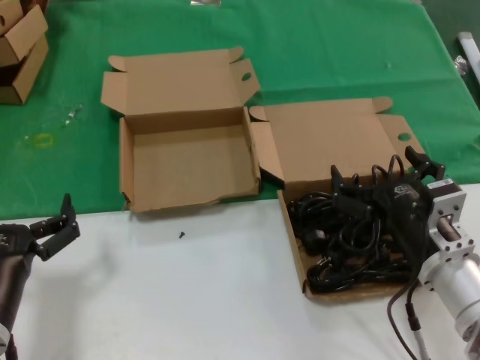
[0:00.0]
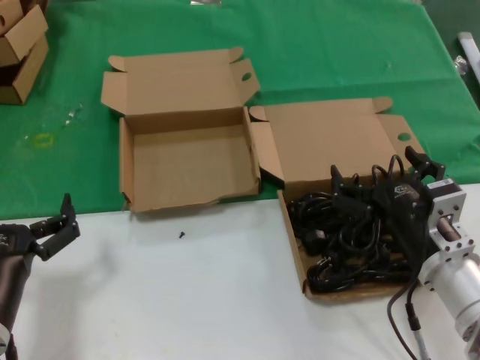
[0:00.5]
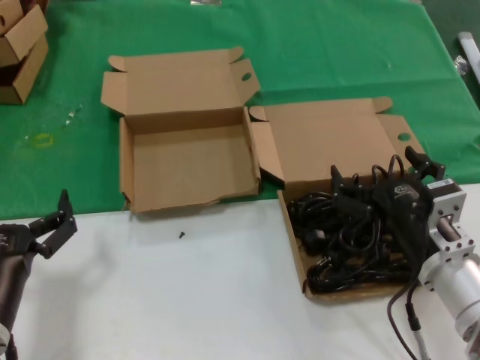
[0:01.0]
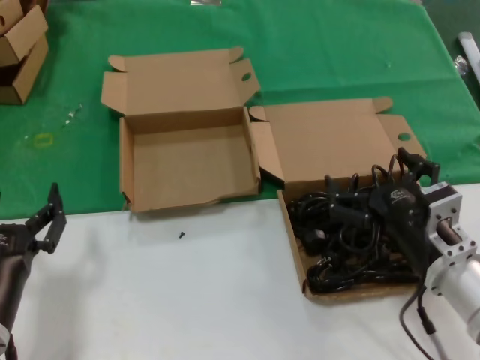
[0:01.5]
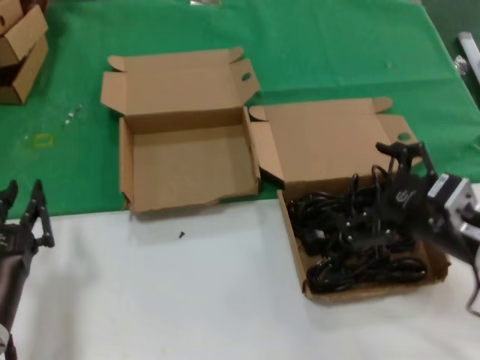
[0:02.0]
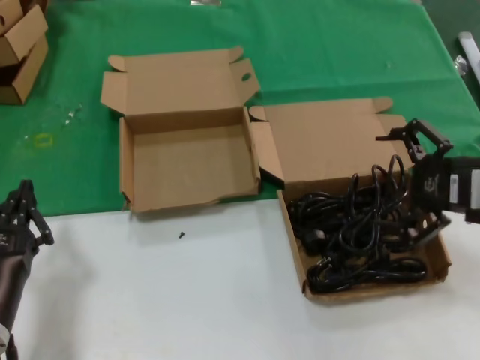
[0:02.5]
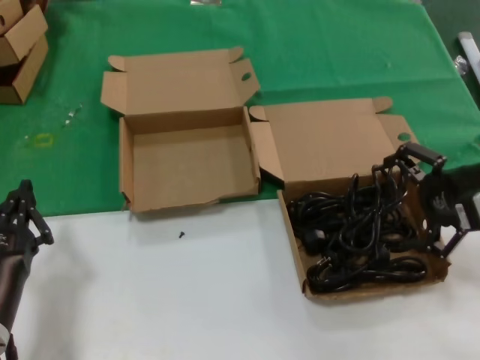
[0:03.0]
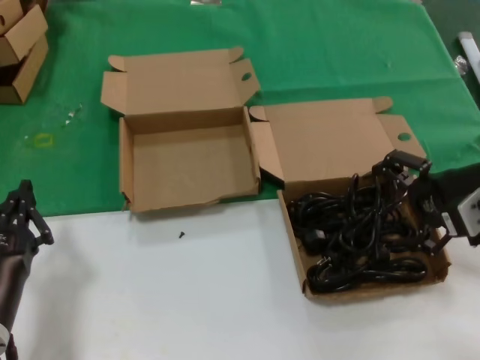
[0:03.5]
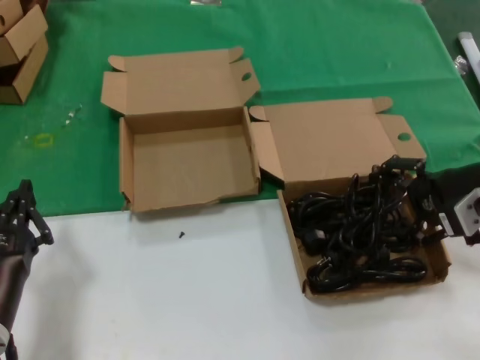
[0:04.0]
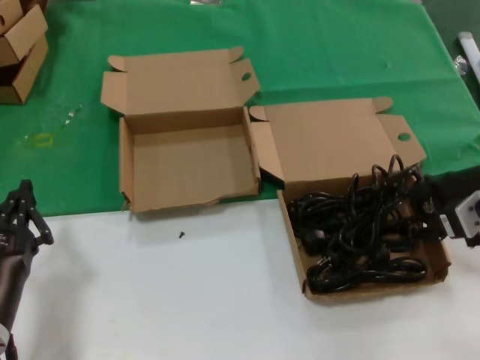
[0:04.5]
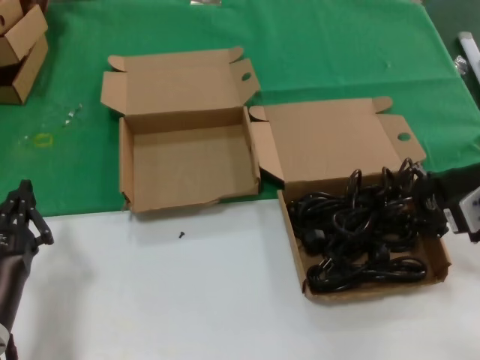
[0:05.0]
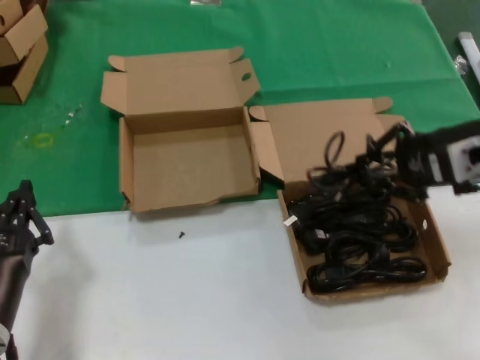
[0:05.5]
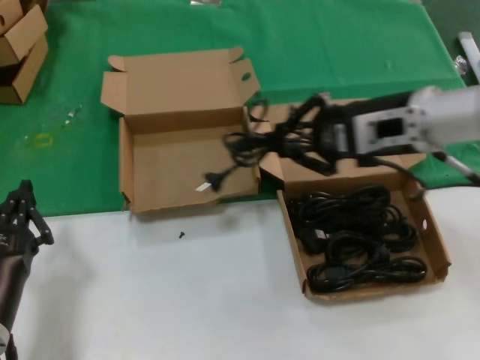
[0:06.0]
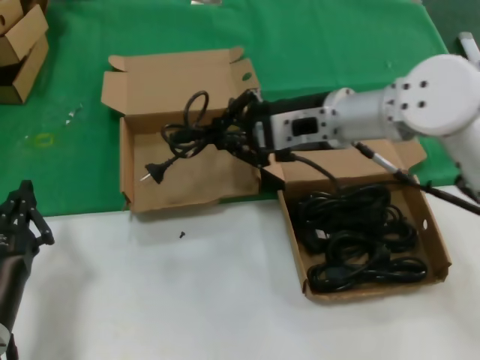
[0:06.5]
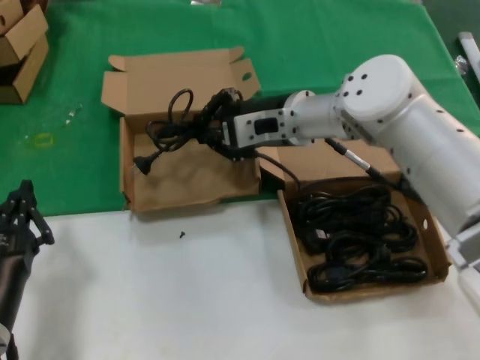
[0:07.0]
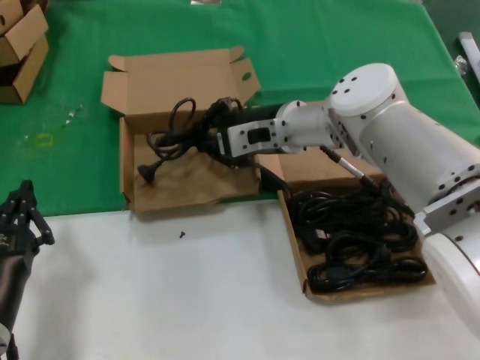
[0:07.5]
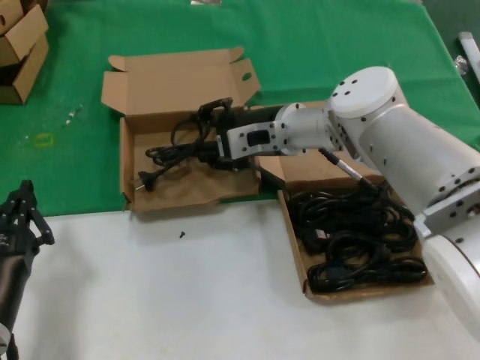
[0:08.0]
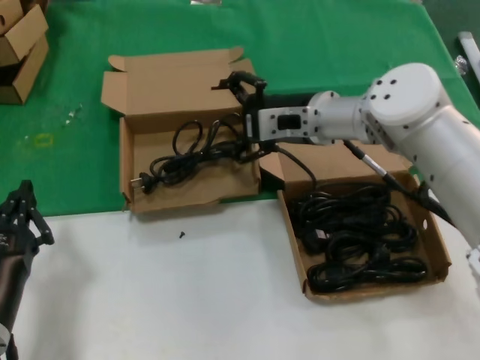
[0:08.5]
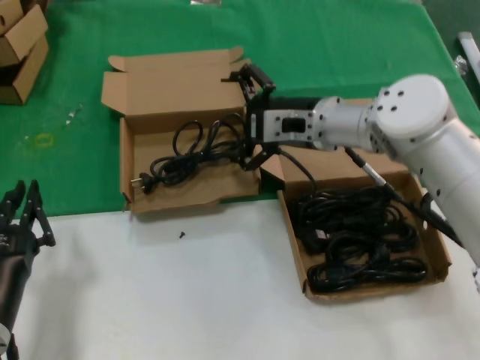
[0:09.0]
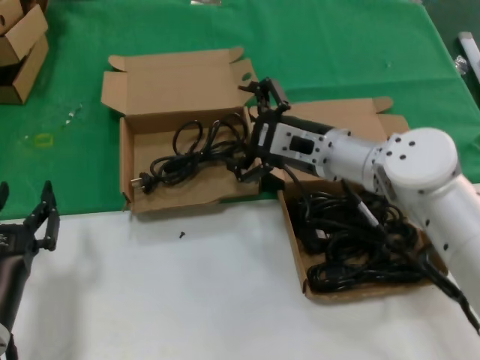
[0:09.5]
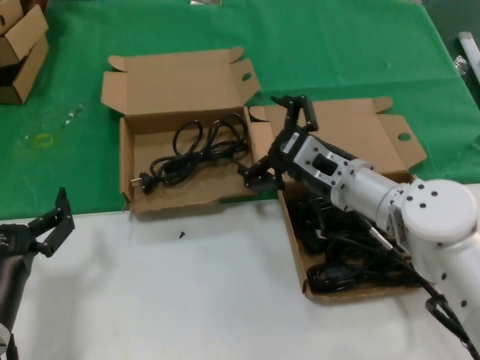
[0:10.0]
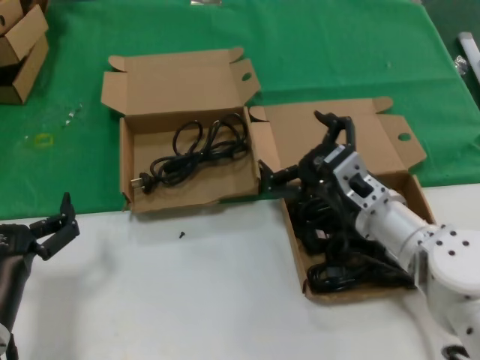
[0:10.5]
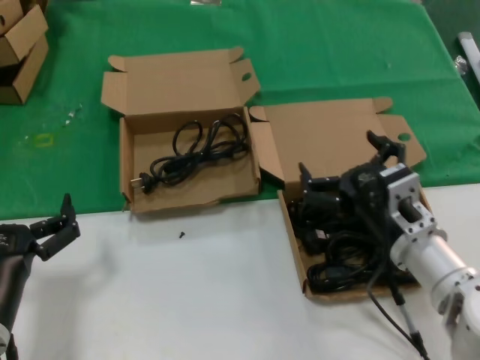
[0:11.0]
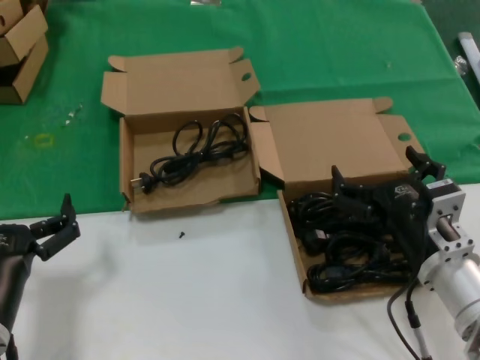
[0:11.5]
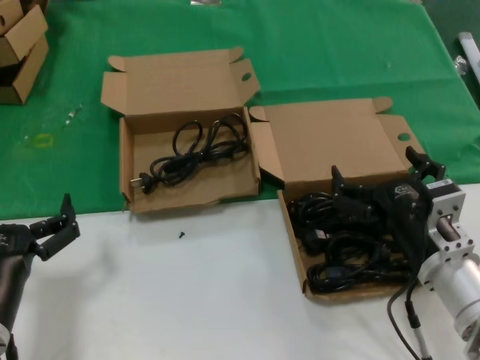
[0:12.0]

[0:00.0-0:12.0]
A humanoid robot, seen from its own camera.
Task of the whole recording: take the parts from the box containing them and put them into an empty box.
Step, 0:00.0 to 0:04.5: Grasp the data cable.
Step, 0:05.0 to 0:08.0: Place the data cable in the another box.
0:00.0 to 0:02.0: The right hand shifts roughly 10 cm upward and to the right.
0:02.0 to 0:04.0: The right hand heads forward, to the right and upward, covering some 15 cm.
0:04.0 to 0:06.0: The right hand moves to the left and upward, approximately 15 cm.
0:06.0 to 0:08.0: The right hand moves to the left, forward and downward, about 20 cm.
0:08.0 to 0:10.0: The right hand shifts some 15 cm backward, downward and to the right.
0:10.0 to 0:12.0: The right hand heads backward and to the right, covering approximately 15 cm.

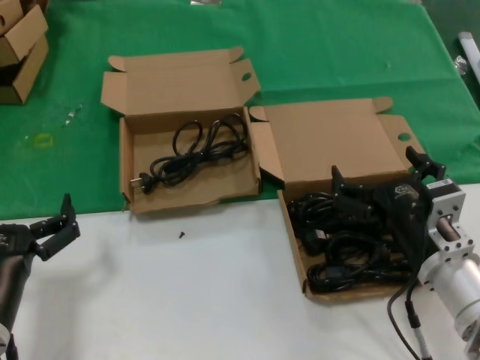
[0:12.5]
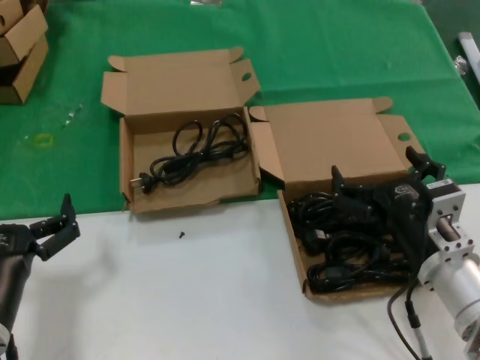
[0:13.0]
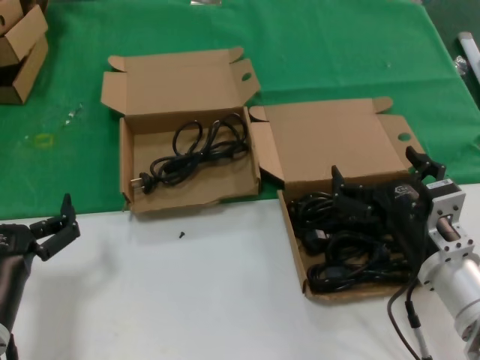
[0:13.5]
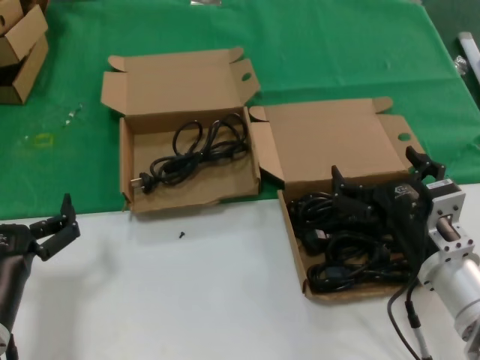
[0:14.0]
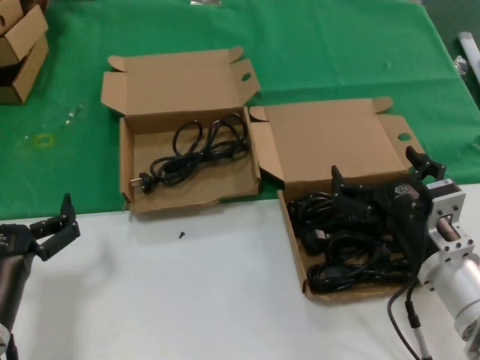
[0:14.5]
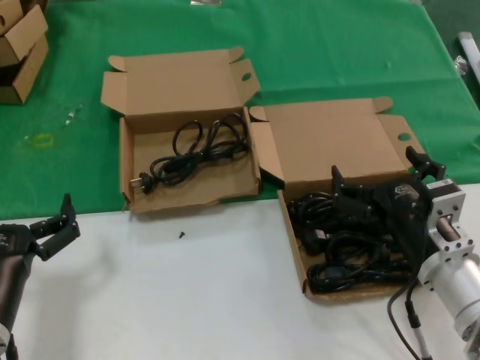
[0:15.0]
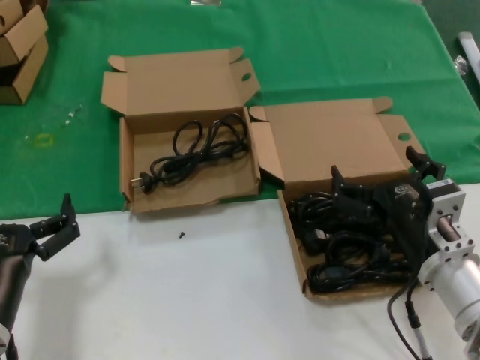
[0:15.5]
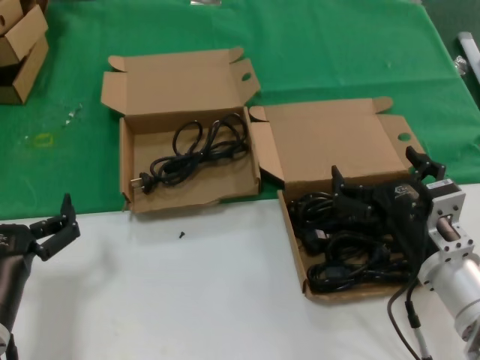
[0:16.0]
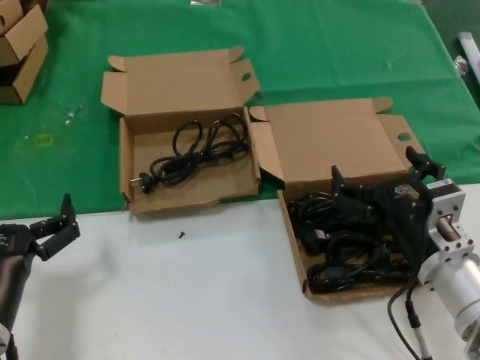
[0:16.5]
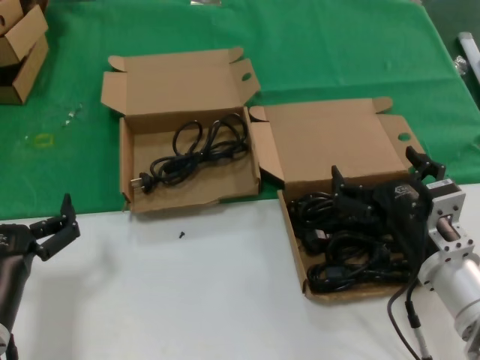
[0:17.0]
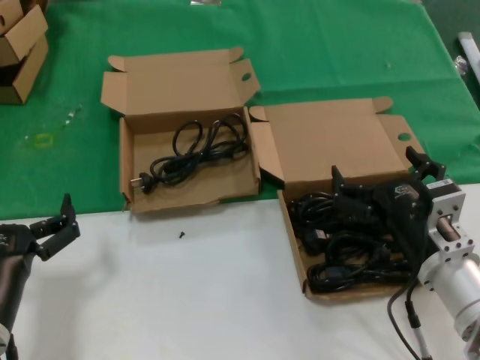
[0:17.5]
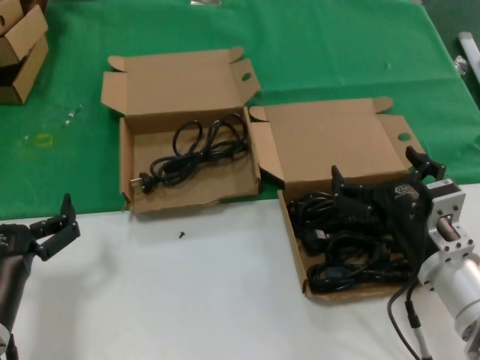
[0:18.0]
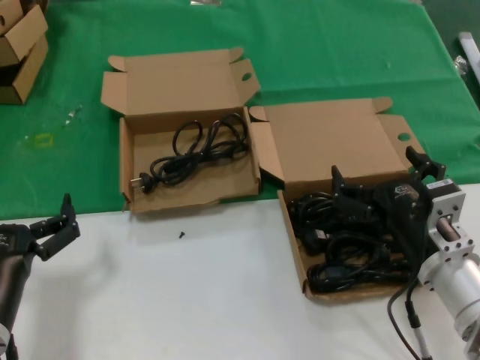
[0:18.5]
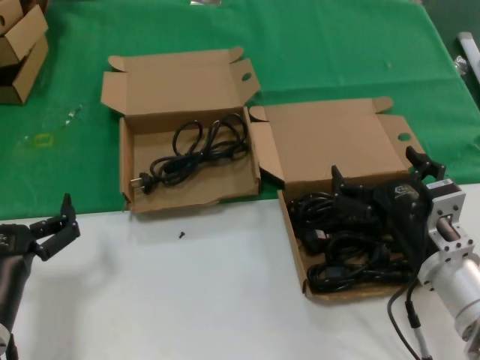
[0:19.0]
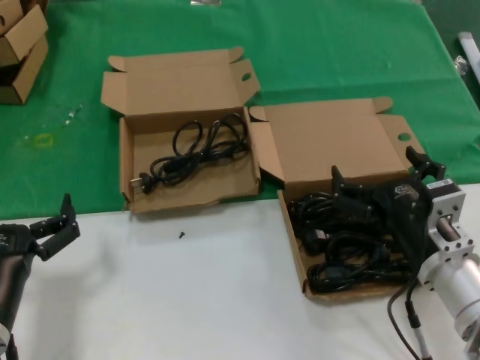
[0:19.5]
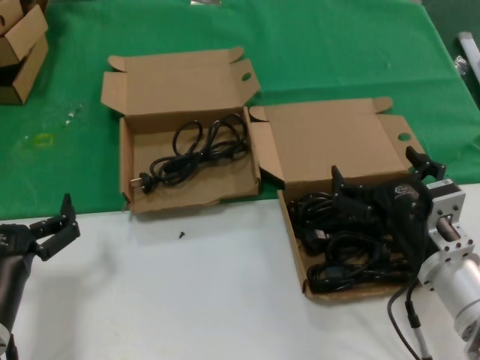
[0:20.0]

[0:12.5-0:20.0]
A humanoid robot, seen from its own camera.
Task of the whole recording: take the parts from the box containing them and put them into an empty box.
0:12.5 to 0:20.0: Both hands stay put.

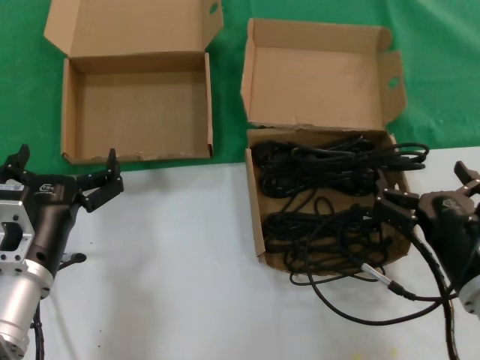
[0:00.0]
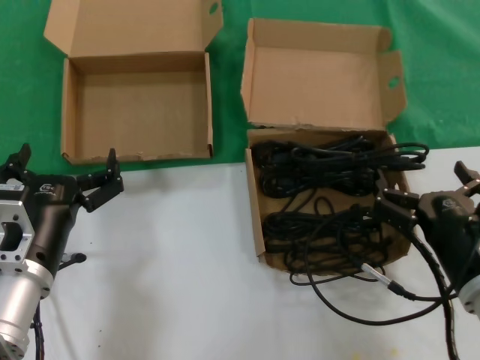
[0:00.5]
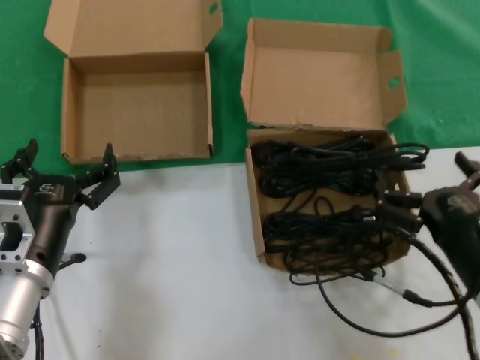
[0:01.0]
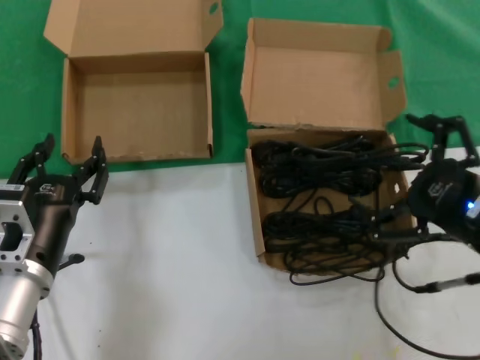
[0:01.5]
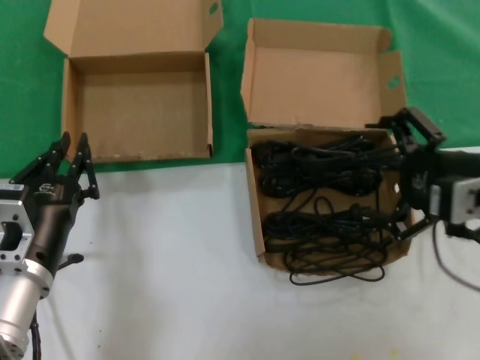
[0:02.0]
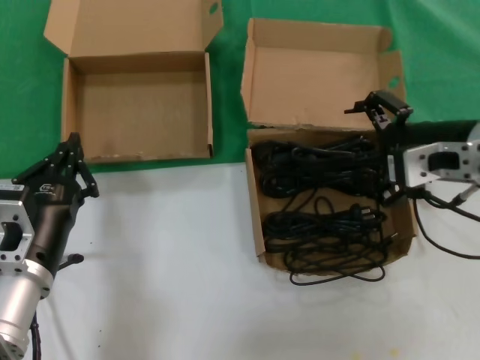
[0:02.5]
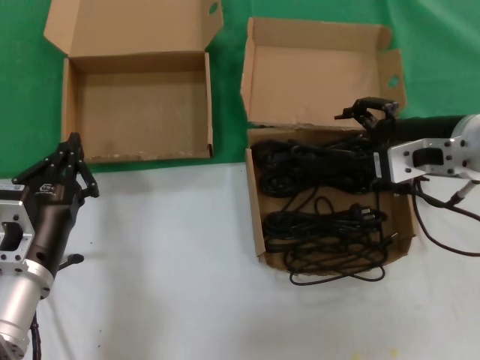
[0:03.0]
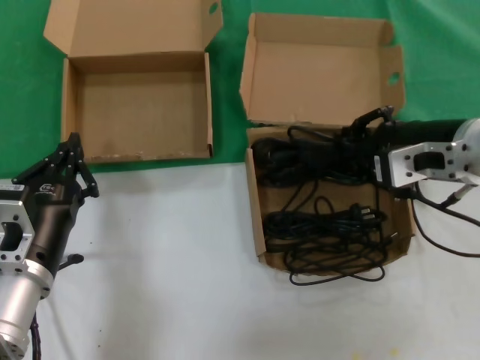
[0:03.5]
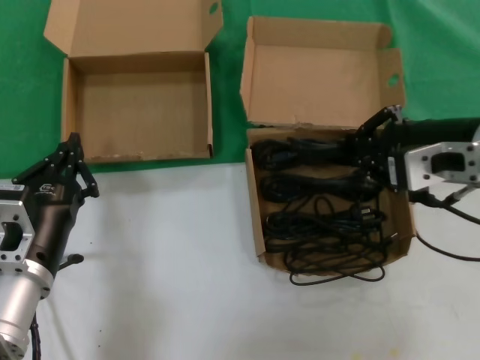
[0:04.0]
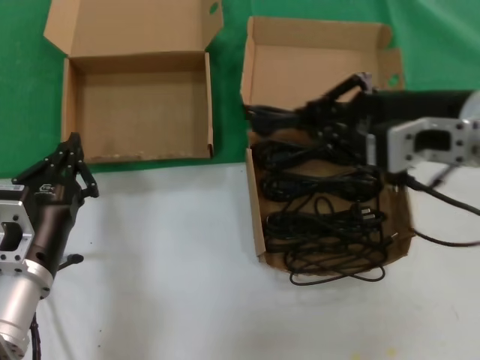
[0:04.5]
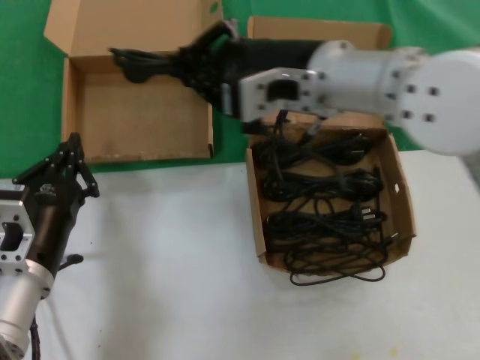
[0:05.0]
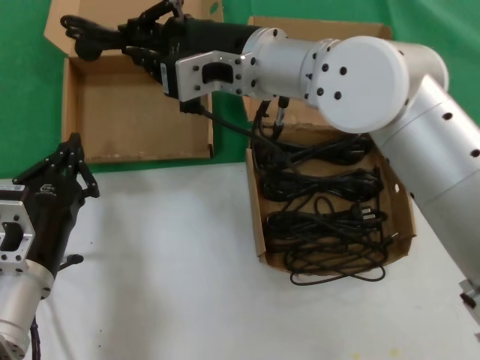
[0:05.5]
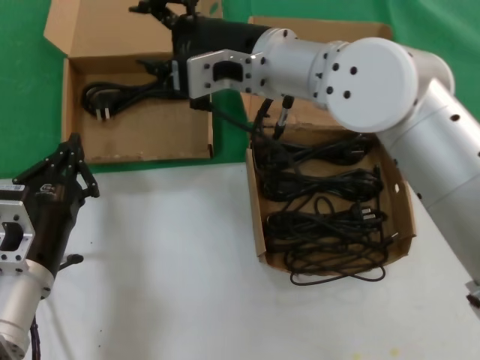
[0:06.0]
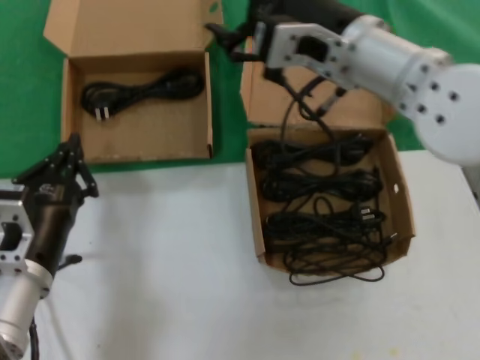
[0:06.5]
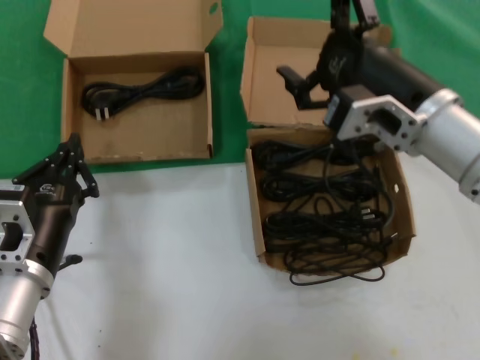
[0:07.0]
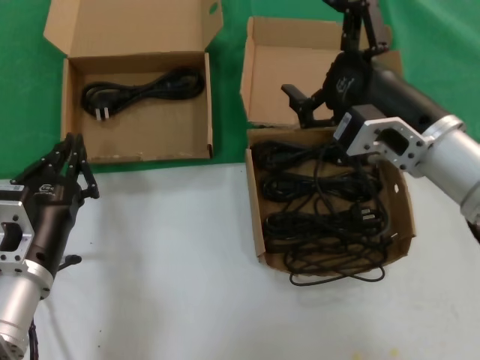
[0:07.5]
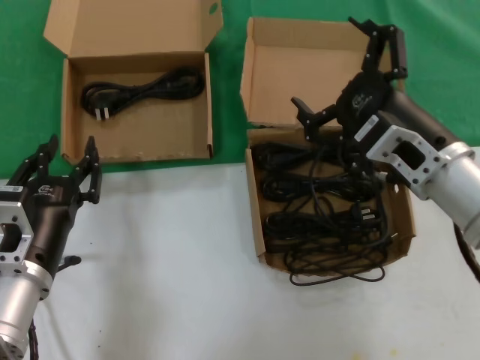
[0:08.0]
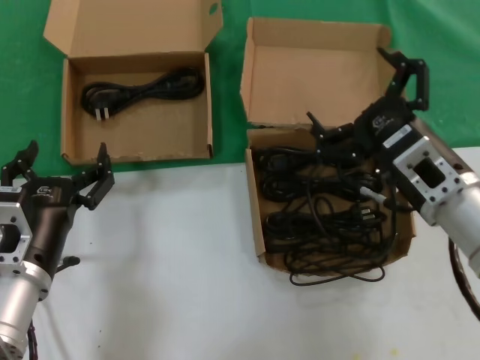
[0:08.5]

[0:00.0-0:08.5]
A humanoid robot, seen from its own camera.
Task of the whole recording: take the parts from the box containing them and put them into an empty box.
Step, 0:00.0 to 0:03.5: Grasp the data cable.
Step, 0:04.0 to 0:05.5: Place the data cable in the another box.
0:00.0 to 0:02.0: The right hand heads upward, covering approximately 15 cm.
0:02.0 to 0:04.0: The right hand moves some 5 cm.
0:04.0 to 0:06.5: The right hand heads to the left and forward, covering about 15 cm.
0:06.5 to 0:08.5: The right hand moves downward, to the right and backward, about 20 cm.
